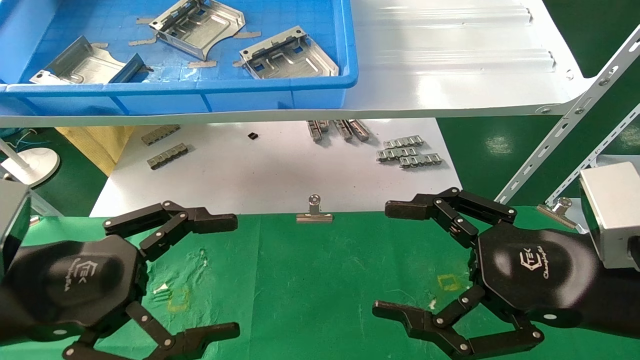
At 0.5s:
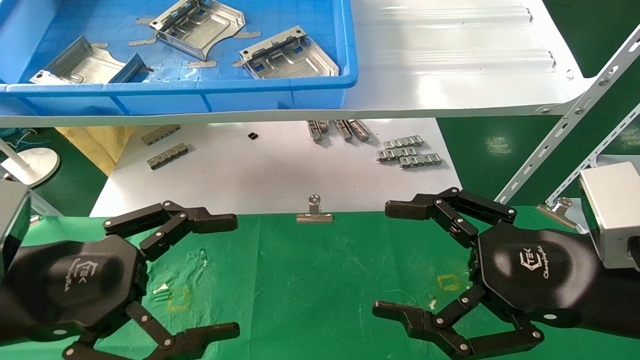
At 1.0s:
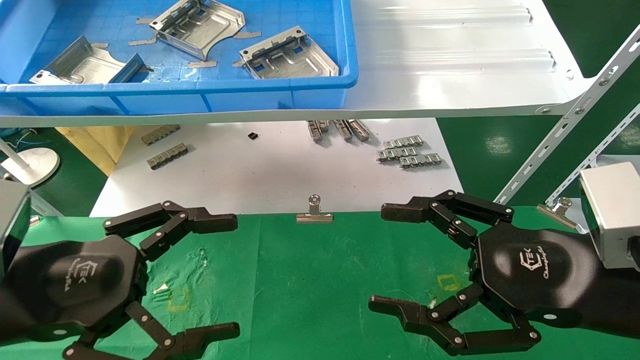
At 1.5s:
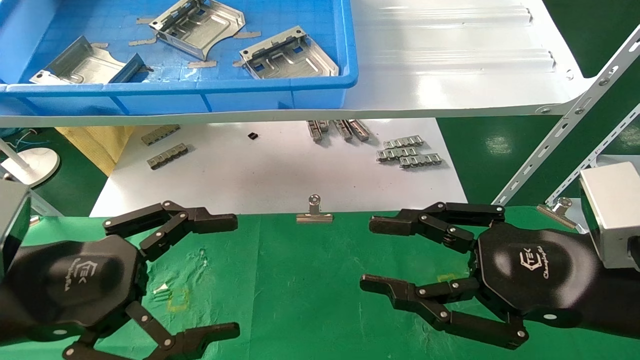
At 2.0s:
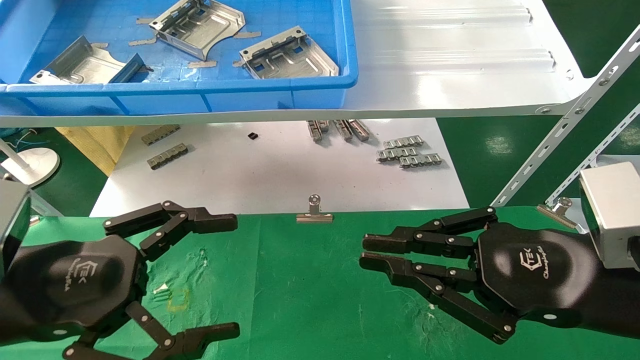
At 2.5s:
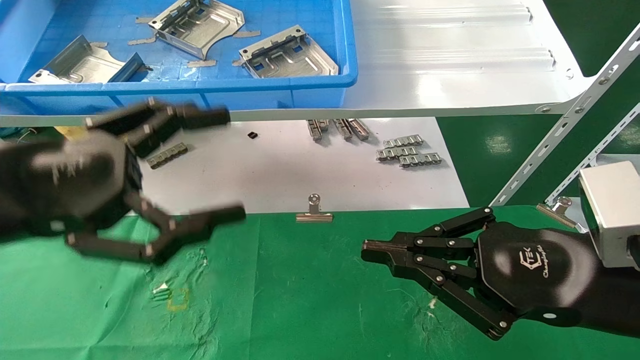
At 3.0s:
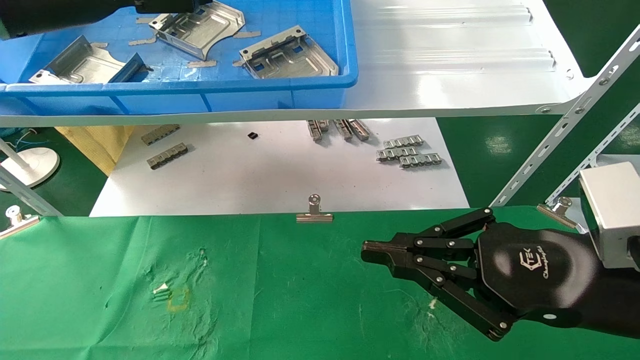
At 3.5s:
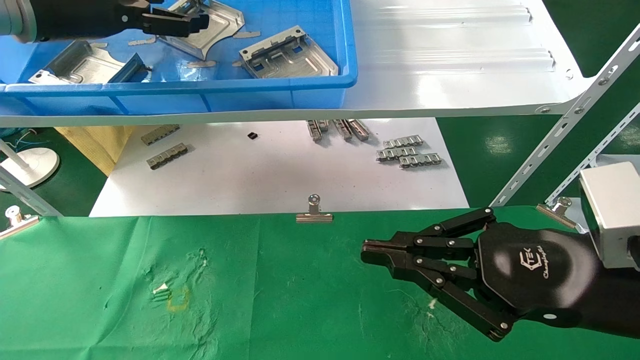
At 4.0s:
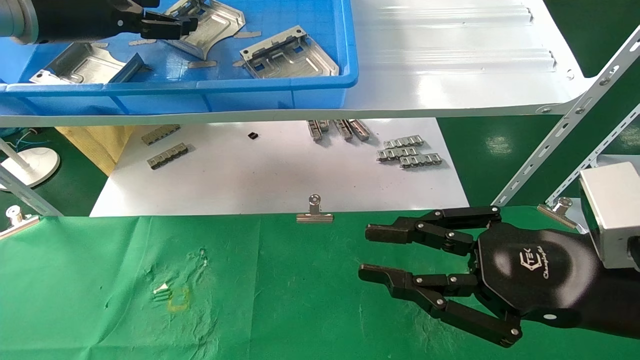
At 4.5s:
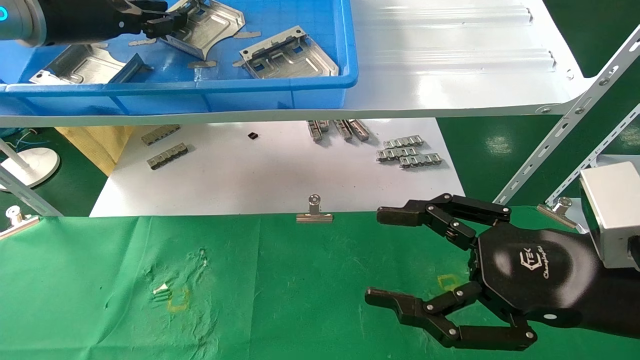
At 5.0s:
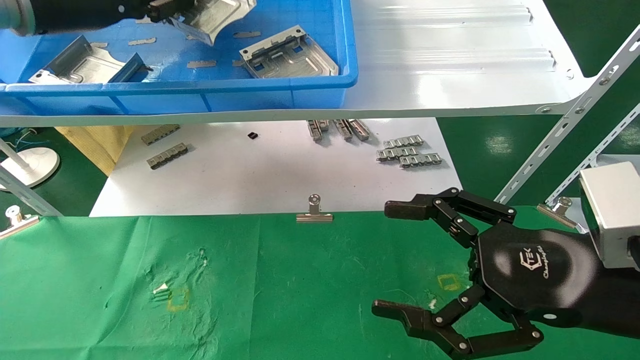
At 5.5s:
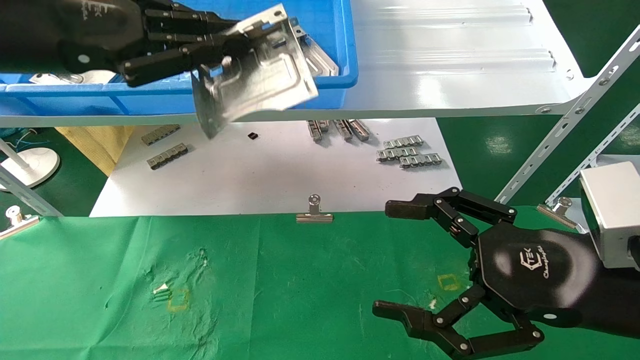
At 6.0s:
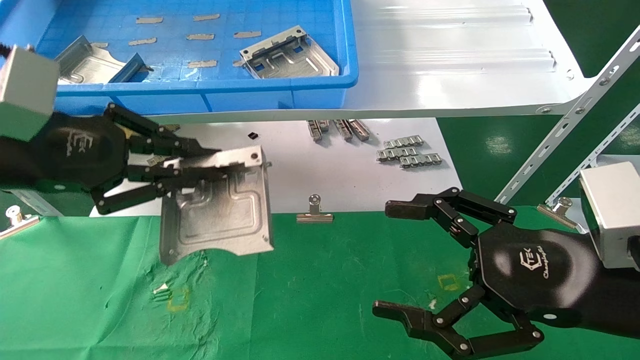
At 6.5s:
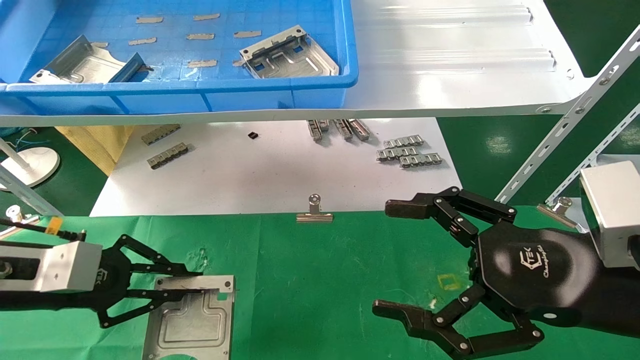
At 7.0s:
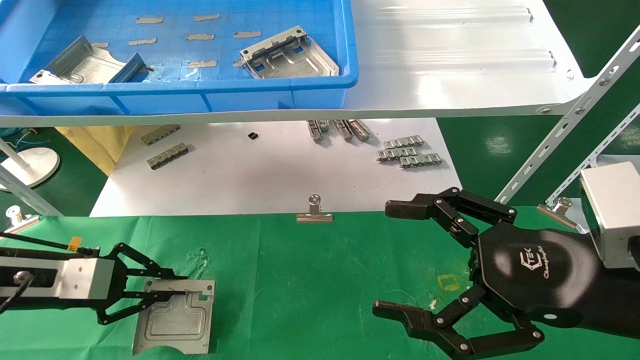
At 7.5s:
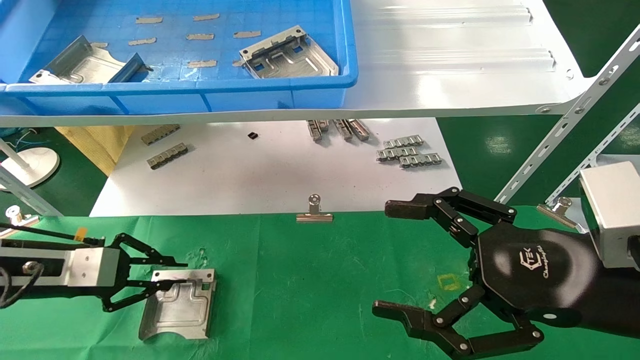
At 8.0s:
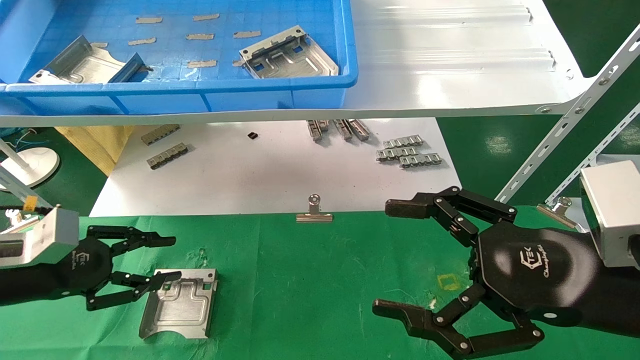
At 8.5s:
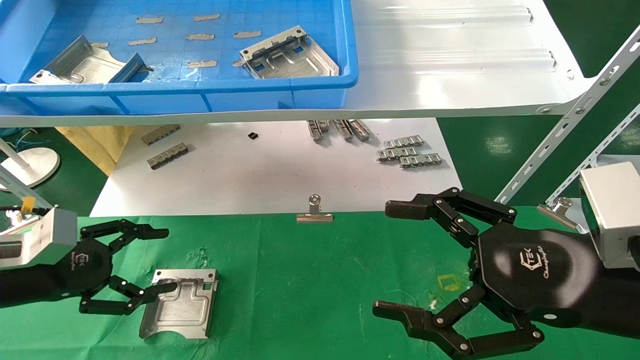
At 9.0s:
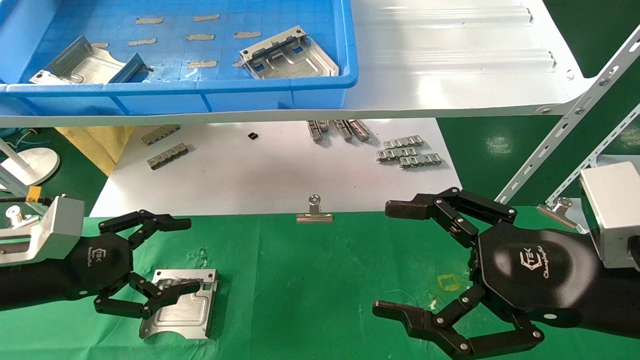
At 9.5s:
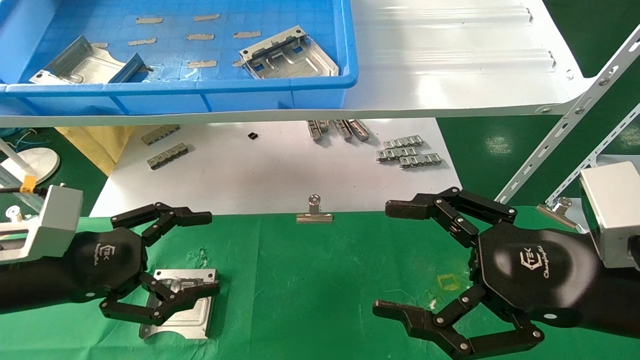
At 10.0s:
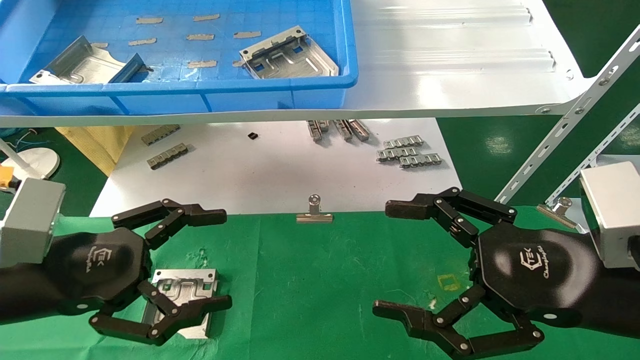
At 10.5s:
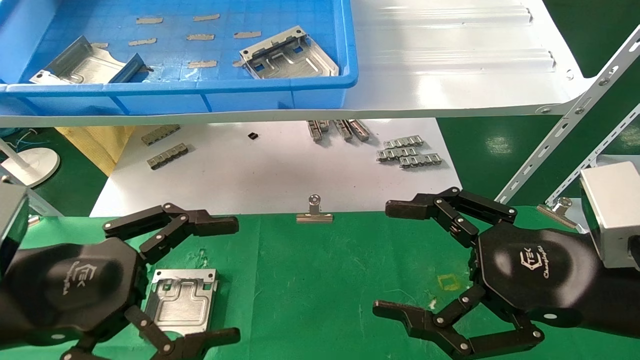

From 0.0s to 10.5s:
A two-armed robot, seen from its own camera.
Task of the whole recording: use the mechanical arm to pick up the parts and place them on the table.
Step, from 3.0s to 4.5s: Pick up the hard drive bracket from the feeding area.
Step, from 5.0s to 7.5s: Place the hard drive bracket into the box.
From 0.0s to 2.0s: The right gripper closes up.
From 2.0s to 4.0s: The left gripper is displaced upward and forward by some 30 cm.
From 4.0s to 6.5s: The left gripper heads downward and backward, covering roughly 25 cm, and closes; the right gripper opens its fingers.
From 6.5s to 8.5s: The left gripper changes place by about 5 cm, and opens up.
From 8.5s to 10.5s: The left gripper heads to the right, backward and upward, covering some 15 cm.
